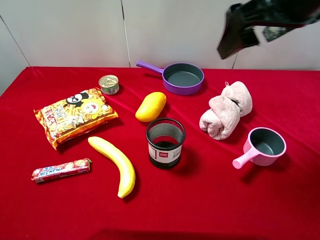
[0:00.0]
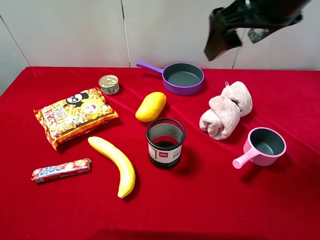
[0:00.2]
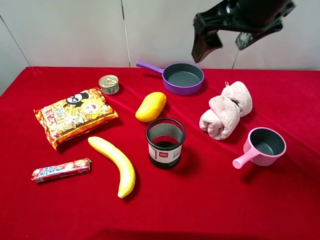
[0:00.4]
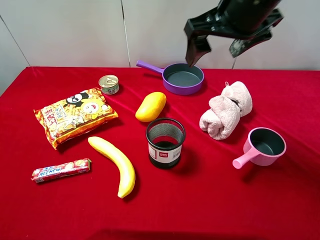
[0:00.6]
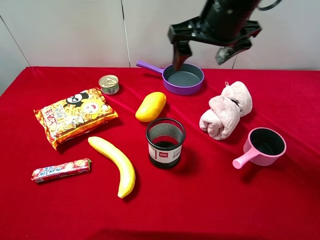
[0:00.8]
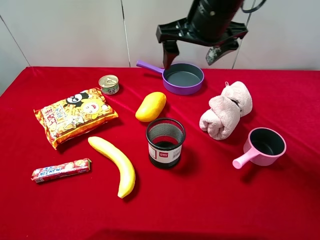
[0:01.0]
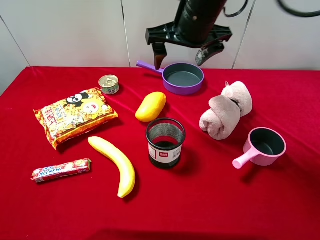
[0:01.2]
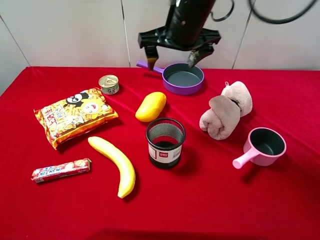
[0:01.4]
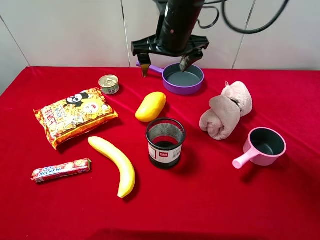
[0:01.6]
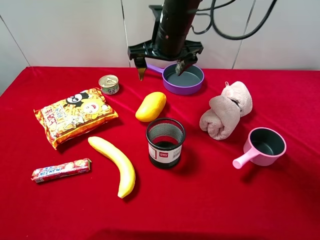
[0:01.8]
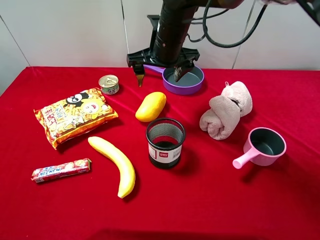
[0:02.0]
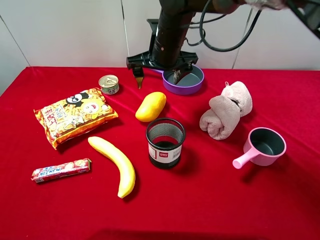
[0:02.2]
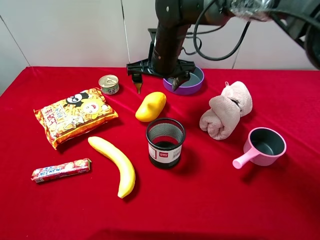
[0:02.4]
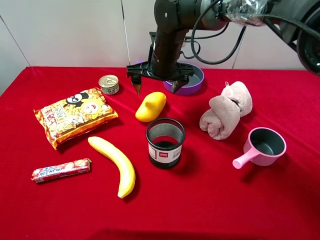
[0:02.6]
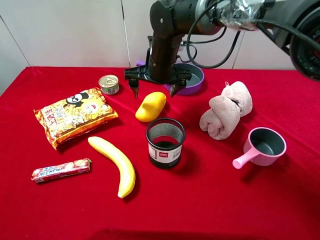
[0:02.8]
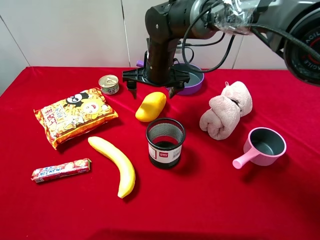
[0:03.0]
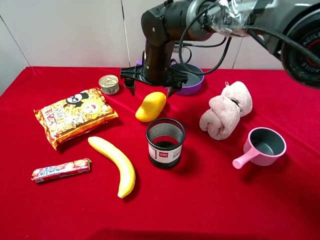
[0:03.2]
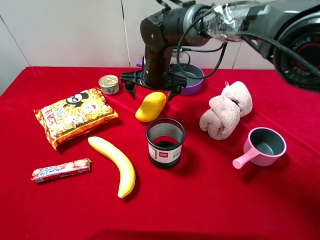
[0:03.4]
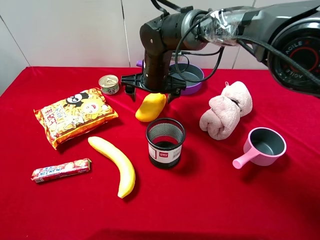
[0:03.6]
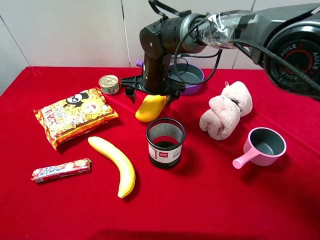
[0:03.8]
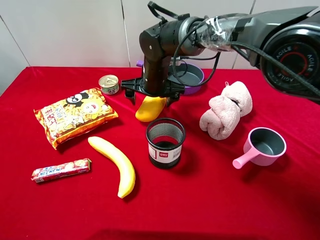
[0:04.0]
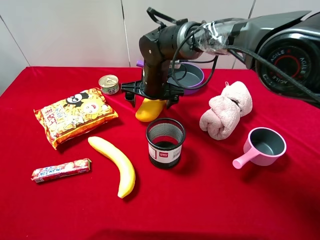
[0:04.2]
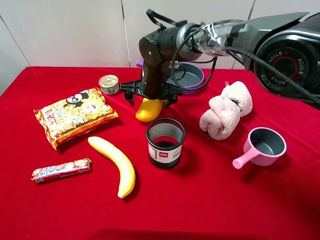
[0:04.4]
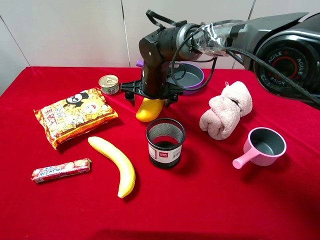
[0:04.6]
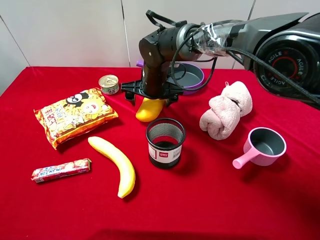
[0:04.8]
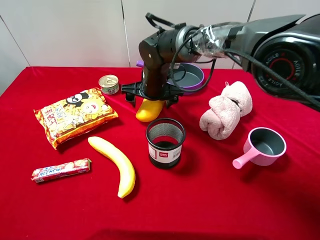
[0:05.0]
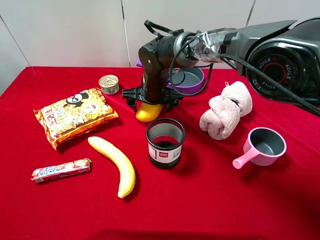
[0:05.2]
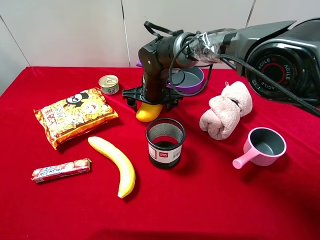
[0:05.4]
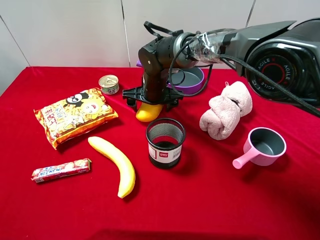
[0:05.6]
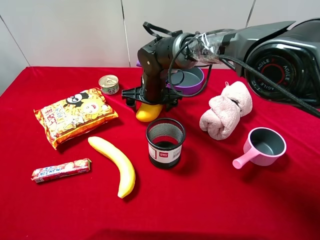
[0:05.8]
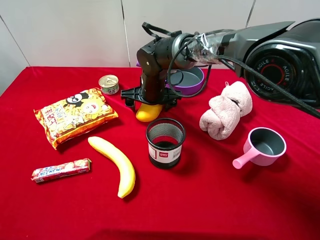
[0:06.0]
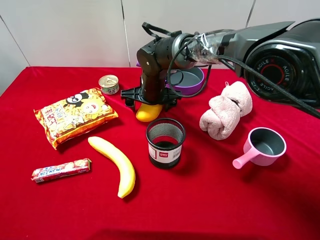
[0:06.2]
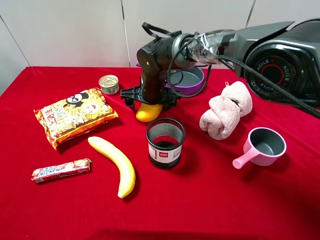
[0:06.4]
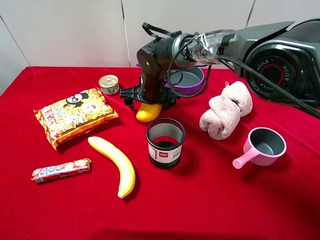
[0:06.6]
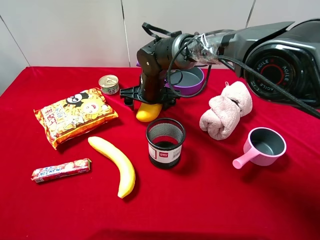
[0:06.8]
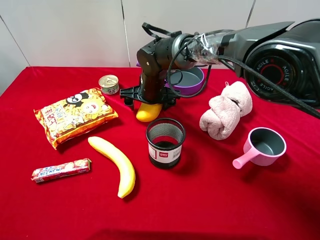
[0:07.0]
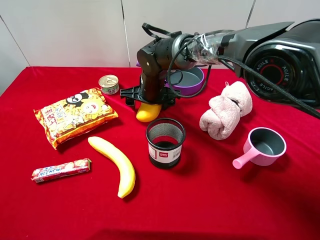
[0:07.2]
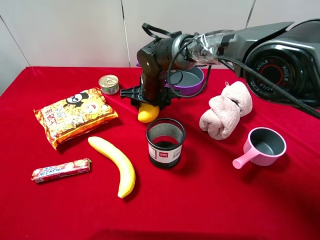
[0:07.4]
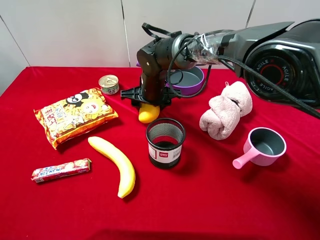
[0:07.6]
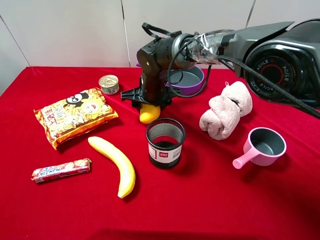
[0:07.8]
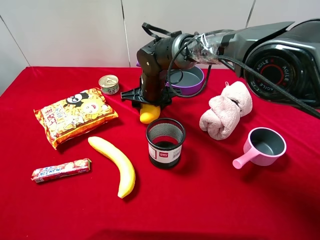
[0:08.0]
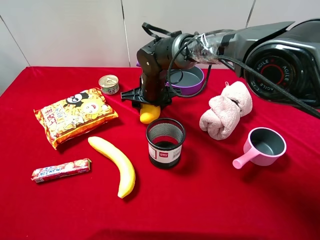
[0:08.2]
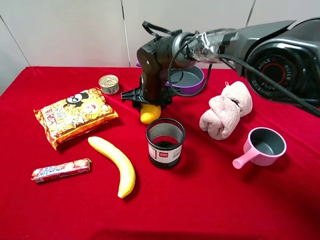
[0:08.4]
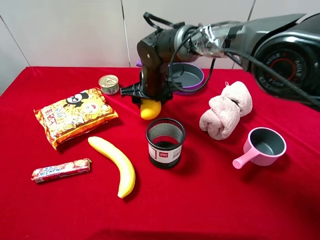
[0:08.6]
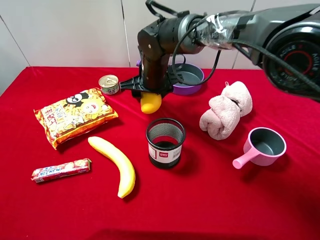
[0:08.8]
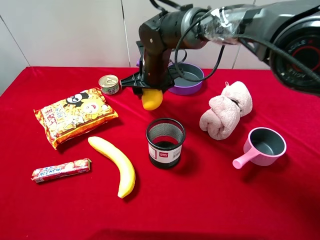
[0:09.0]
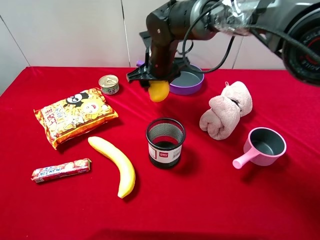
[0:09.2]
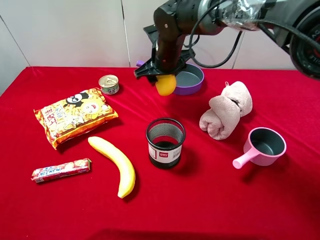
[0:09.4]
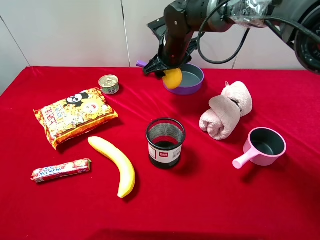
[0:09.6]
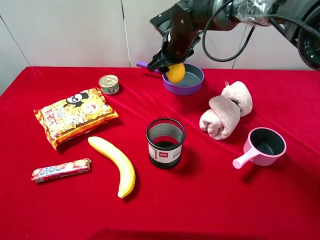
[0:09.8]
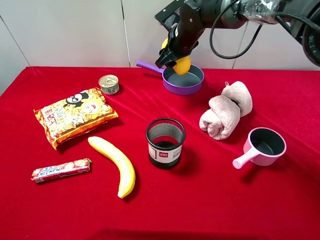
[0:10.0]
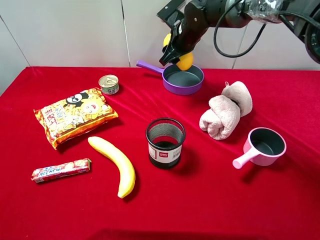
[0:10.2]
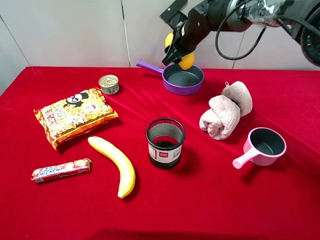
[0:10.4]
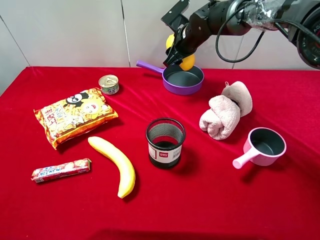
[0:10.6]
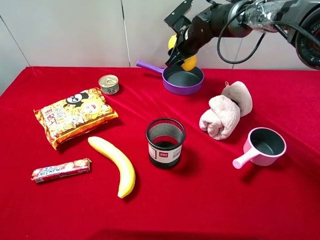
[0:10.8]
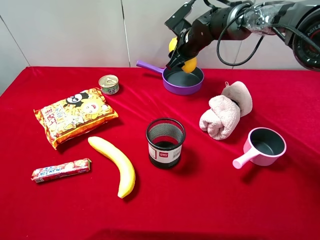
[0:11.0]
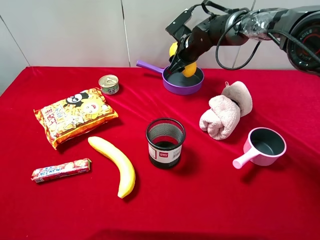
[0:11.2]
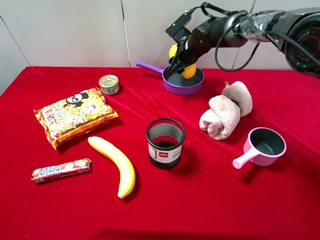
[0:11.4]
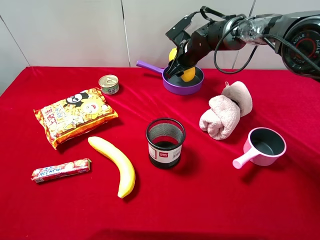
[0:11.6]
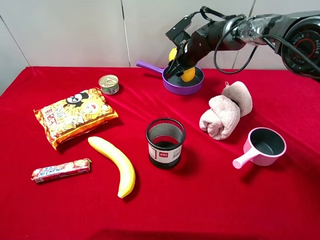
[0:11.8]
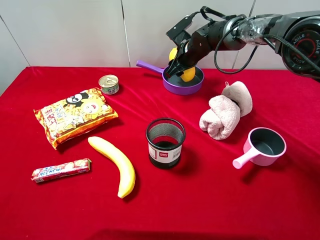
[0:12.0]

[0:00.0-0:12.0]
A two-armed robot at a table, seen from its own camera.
Task of the whole recording: pick up an item with a gripper and place it in a random container on the desktop.
0:00.0 to 0:01.6: The right gripper goes about 20 cm to the left, forward and downward.
0:01.6 to 0:03.0: The right gripper shifts approximately 10 cm downward.
0:03.0 to 0:04.4: The grippers stay close to where they were, moving slightly.
0:04.4 to 0:06.0: The grippers make only small movements.
0:06.0 to 0:07.6: The right gripper closes.
0:07.6 to 0:09.0: The right gripper goes about 5 cm upward.
0:09.0 to 0:10.4: The right gripper heads forward and to the right, covering some 15 cm.
0:10.4 to 0:12.0: The right gripper shifts approximately 5 cm downward.

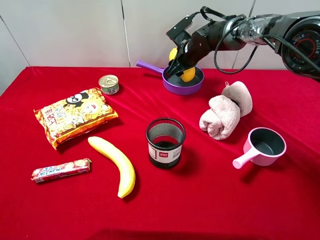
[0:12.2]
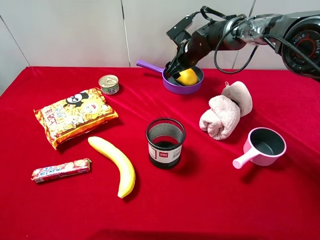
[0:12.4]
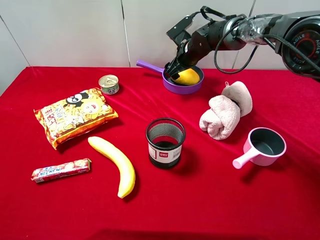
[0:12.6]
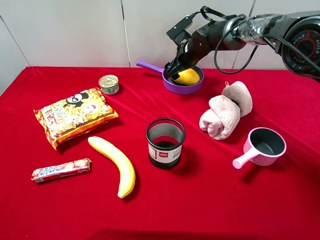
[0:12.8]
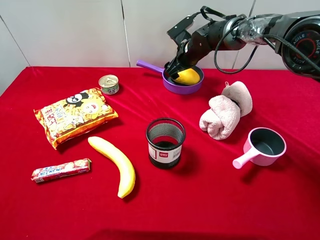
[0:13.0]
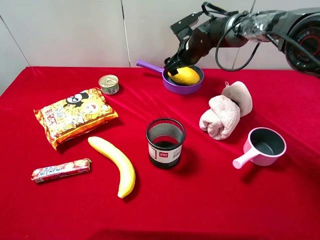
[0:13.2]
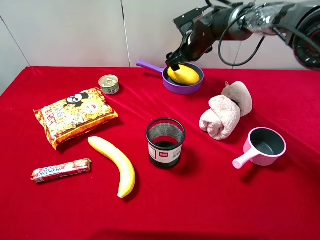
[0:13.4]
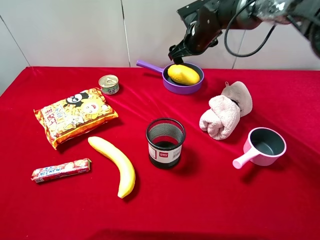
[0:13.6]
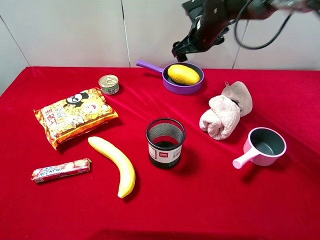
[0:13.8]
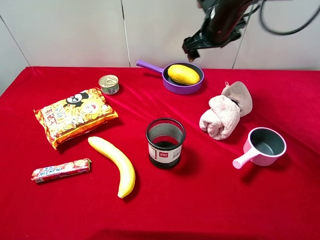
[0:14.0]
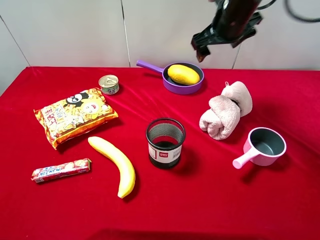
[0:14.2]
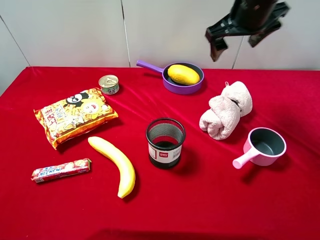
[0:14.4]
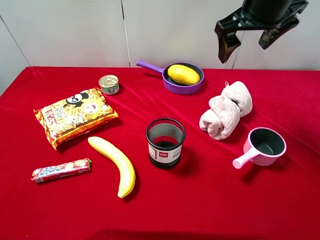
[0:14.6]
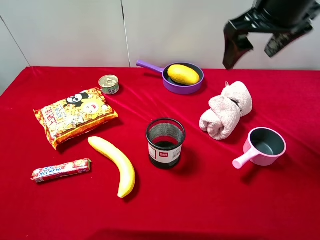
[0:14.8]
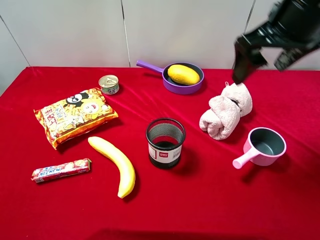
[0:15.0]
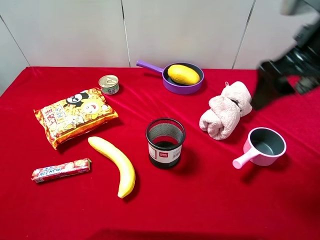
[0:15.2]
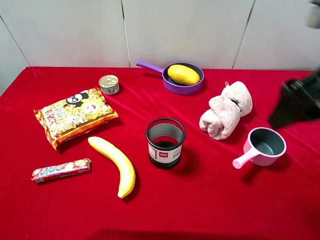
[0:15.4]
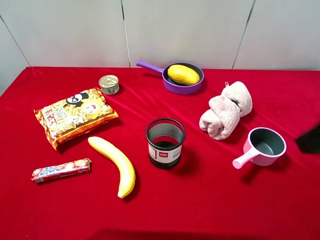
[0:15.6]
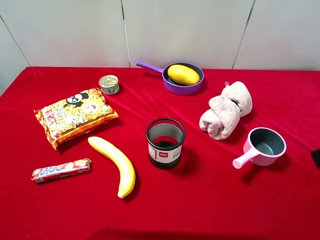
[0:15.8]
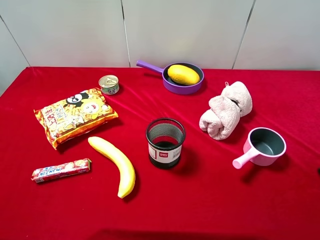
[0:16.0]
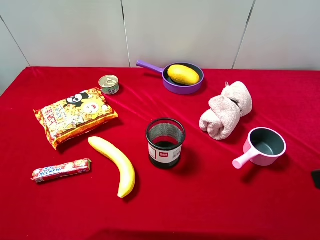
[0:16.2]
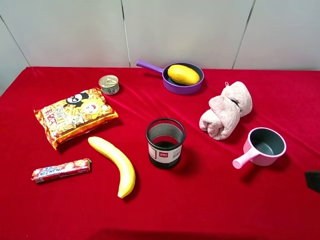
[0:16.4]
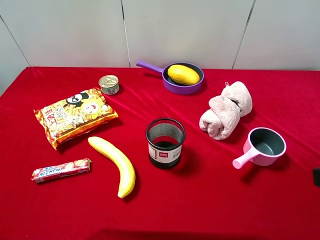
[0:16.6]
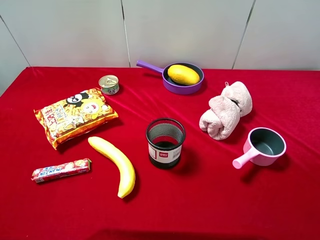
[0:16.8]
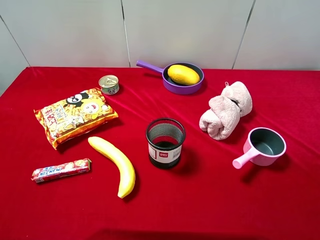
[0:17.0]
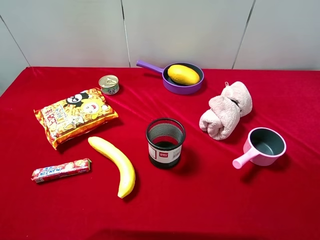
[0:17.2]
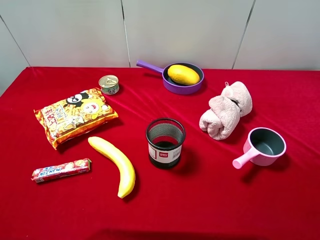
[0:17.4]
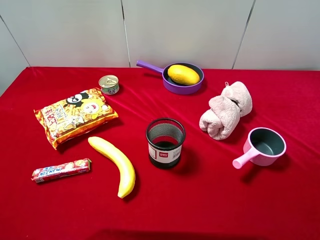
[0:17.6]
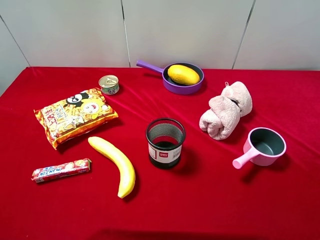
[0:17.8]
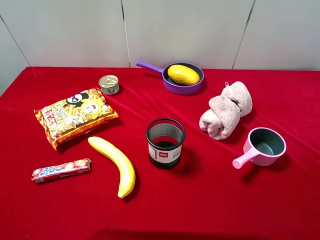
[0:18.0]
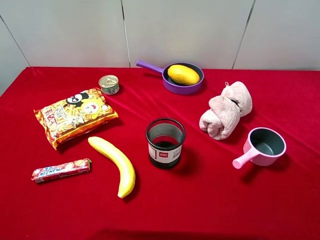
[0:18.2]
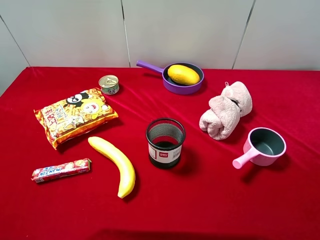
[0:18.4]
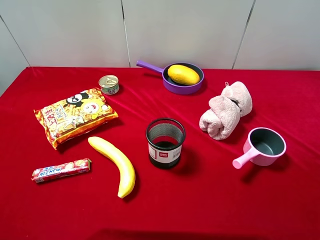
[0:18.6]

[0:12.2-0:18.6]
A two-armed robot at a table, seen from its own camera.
Task of the whole recording: pick up an item with a gripper and place it in a random container on the desktop.
0:12.2 to 0:13.8: The right gripper goes about 10 cm upward, and opens up.
0:13.8 to 0:15.4: The right gripper is displaced backward and to the right by roughly 30 cm.
0:15.4 to 0:17.0: The right gripper moves backward and to the right, approximately 20 cm.

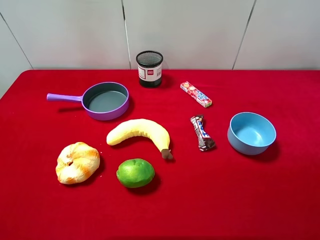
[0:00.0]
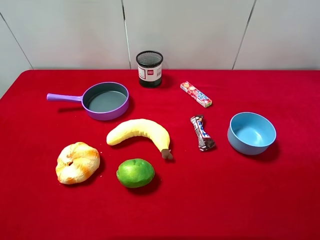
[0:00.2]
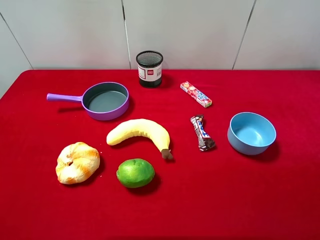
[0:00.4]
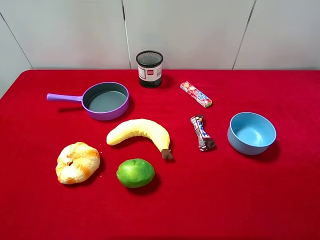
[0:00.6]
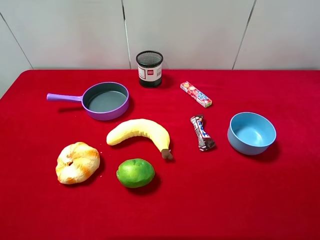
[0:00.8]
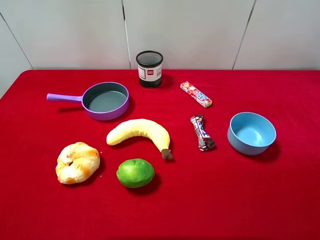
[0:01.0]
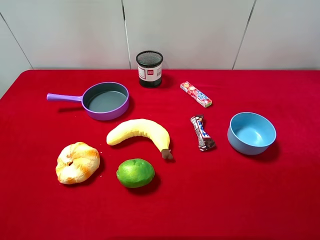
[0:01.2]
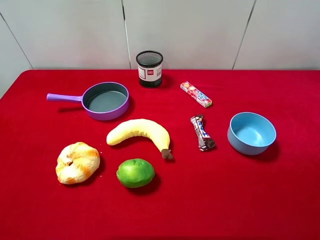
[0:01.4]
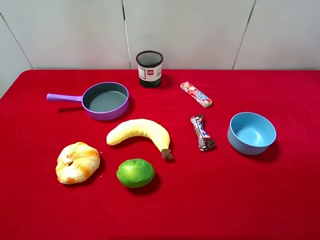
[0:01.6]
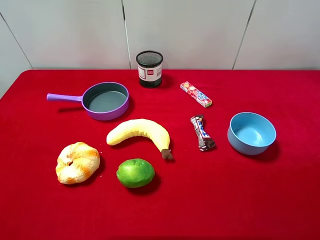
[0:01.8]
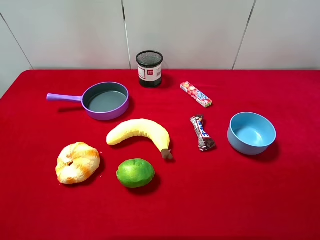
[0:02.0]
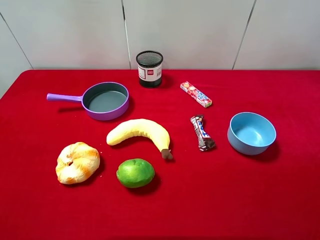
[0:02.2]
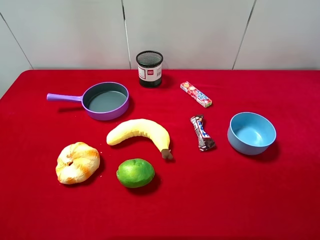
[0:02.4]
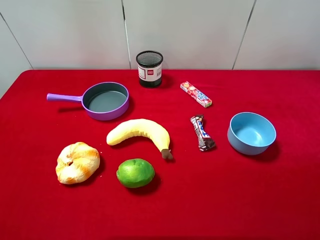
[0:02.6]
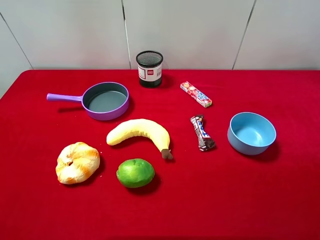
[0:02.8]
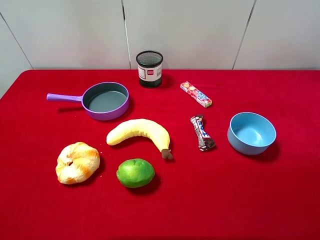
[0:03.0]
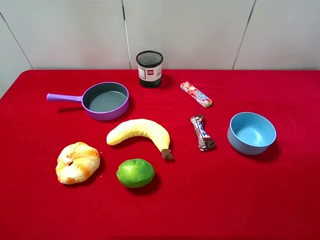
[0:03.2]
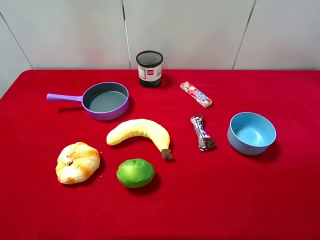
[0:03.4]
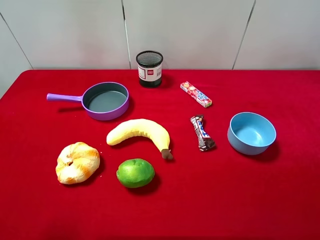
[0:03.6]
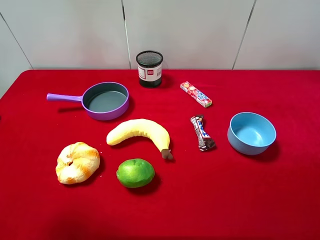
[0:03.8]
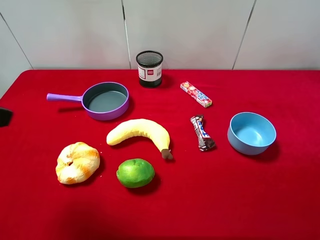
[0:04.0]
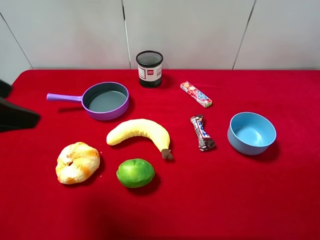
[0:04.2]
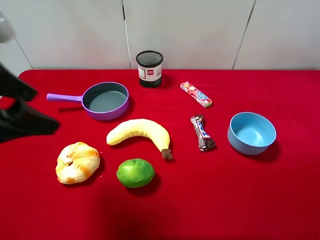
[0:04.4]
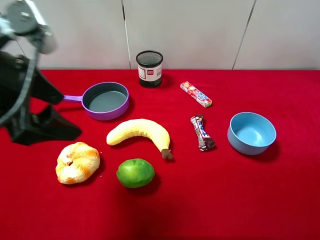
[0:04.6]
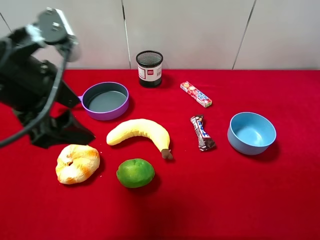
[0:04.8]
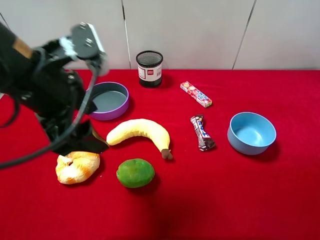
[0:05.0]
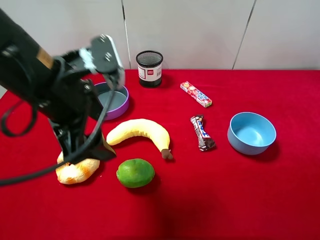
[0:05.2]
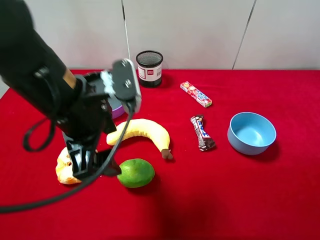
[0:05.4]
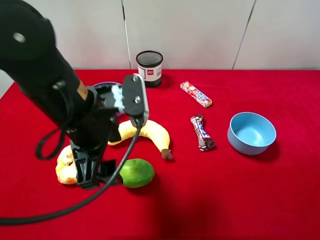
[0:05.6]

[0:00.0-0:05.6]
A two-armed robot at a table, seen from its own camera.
Task of the whole recording: pick up an item with a gripper and place it in a random container on the desktop.
0:00.0 to 0:02.8: The two grippers keep their place.
0:02.8 to 0:04.2: The left gripper shifts approximately 15 cm forward and to the right.
0:04.2 to 0:05.6: The left gripper is displaced to the right and downward by about 15 cm.
